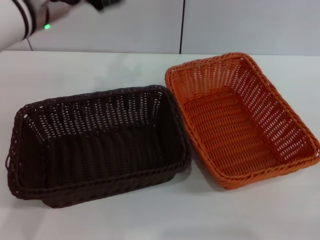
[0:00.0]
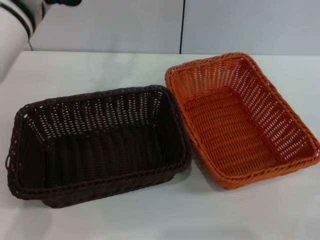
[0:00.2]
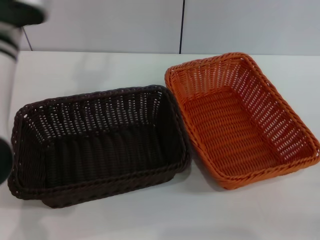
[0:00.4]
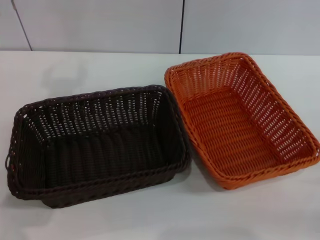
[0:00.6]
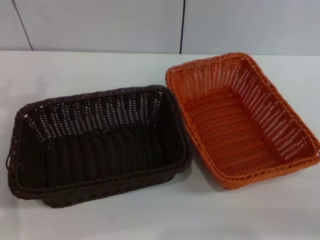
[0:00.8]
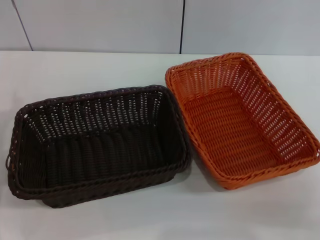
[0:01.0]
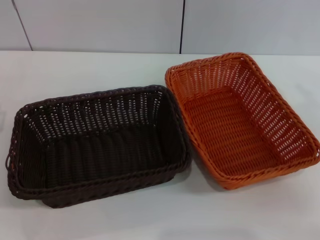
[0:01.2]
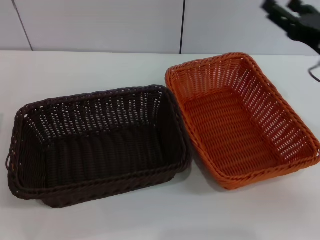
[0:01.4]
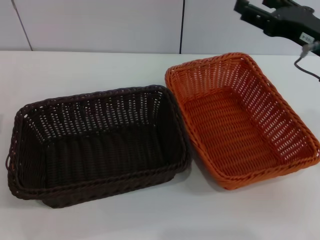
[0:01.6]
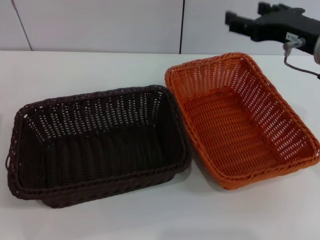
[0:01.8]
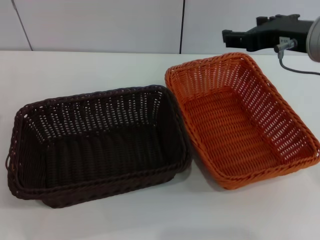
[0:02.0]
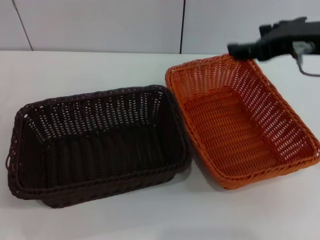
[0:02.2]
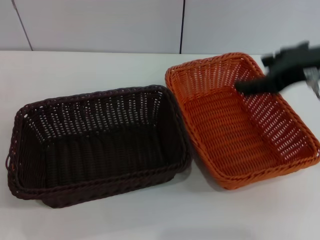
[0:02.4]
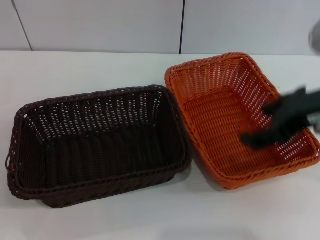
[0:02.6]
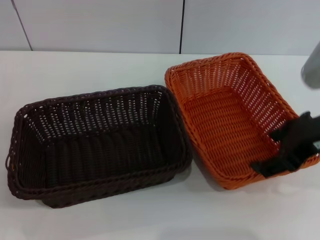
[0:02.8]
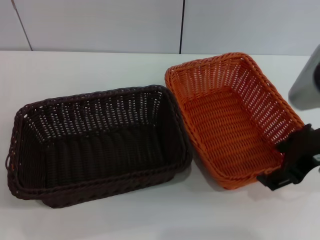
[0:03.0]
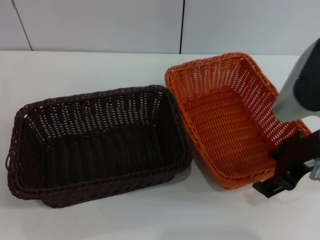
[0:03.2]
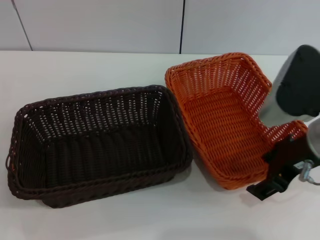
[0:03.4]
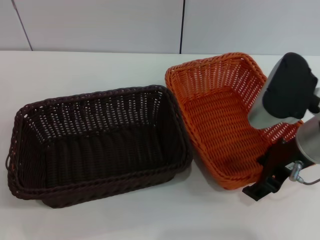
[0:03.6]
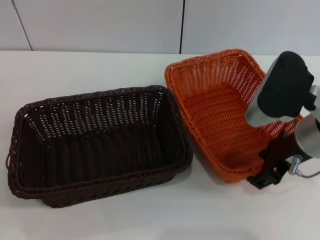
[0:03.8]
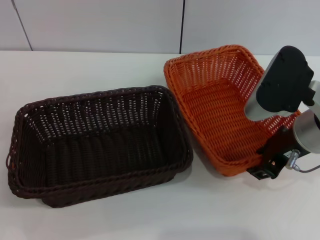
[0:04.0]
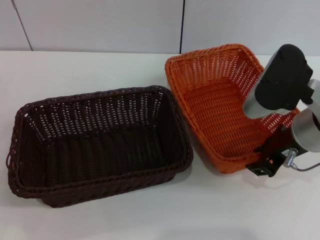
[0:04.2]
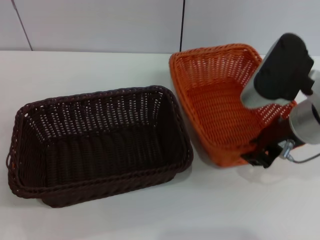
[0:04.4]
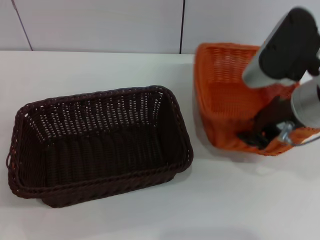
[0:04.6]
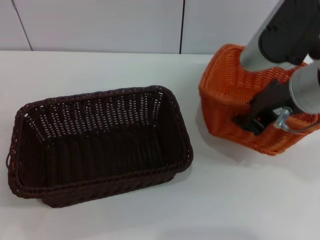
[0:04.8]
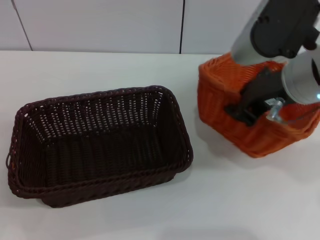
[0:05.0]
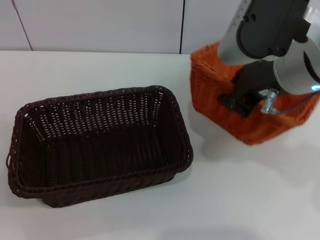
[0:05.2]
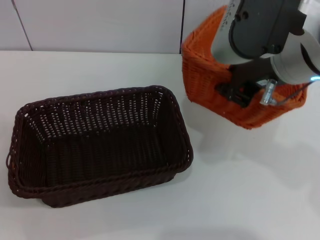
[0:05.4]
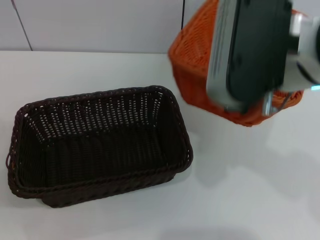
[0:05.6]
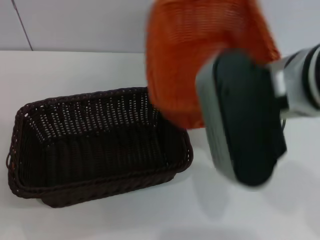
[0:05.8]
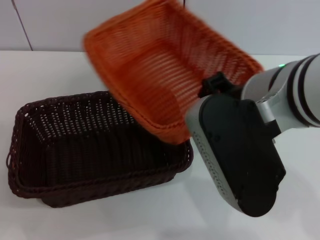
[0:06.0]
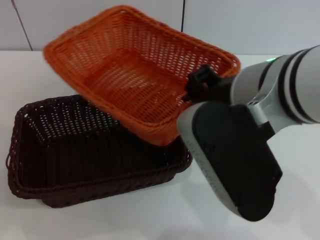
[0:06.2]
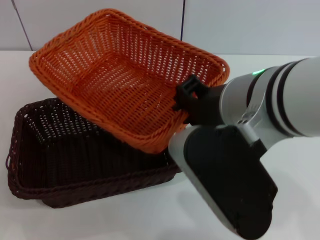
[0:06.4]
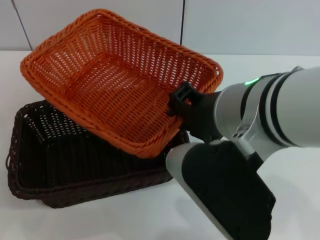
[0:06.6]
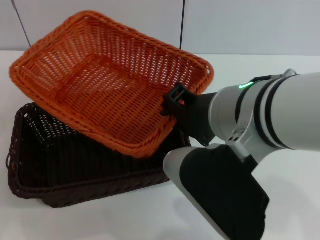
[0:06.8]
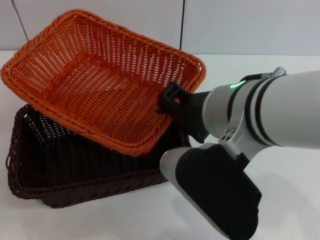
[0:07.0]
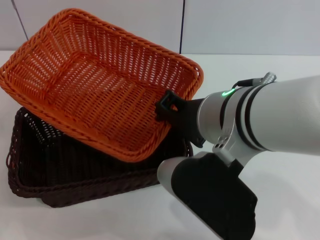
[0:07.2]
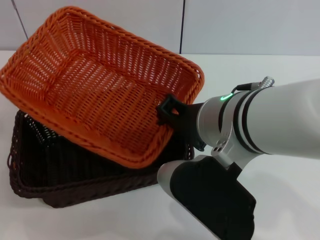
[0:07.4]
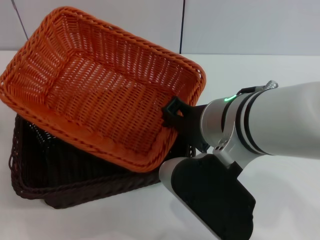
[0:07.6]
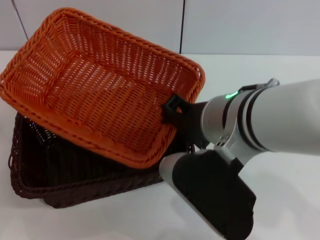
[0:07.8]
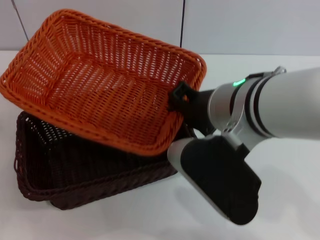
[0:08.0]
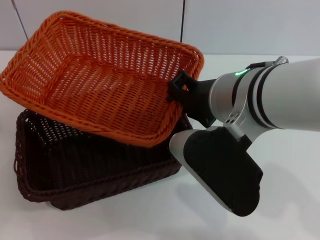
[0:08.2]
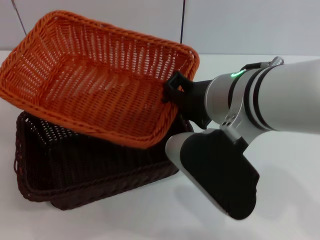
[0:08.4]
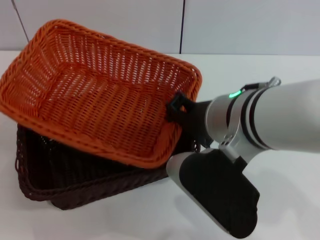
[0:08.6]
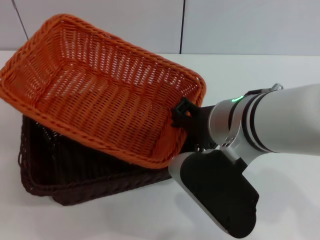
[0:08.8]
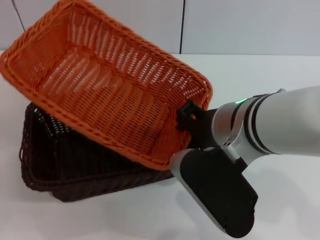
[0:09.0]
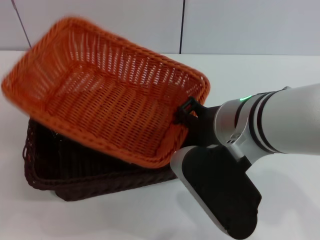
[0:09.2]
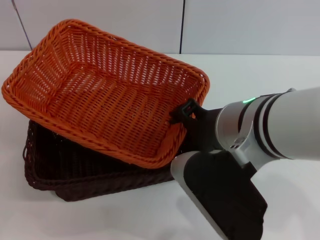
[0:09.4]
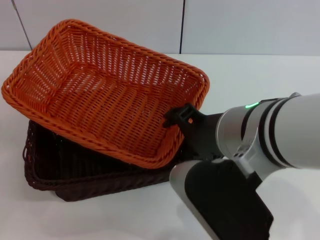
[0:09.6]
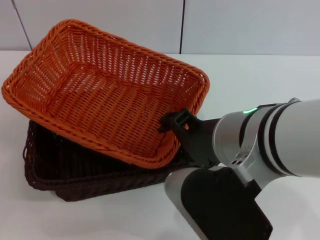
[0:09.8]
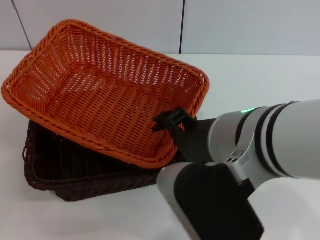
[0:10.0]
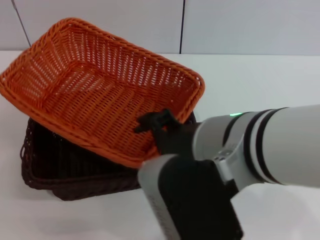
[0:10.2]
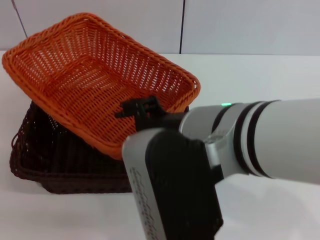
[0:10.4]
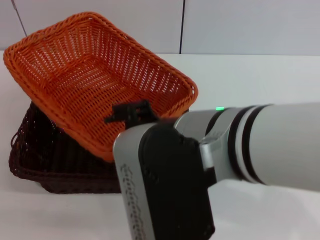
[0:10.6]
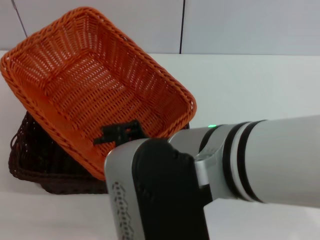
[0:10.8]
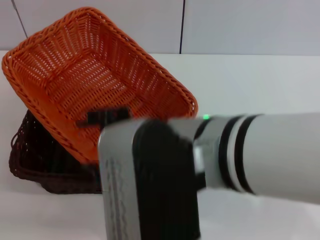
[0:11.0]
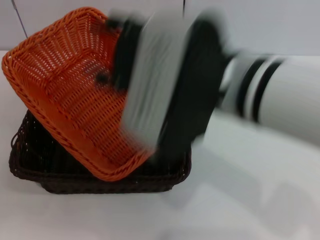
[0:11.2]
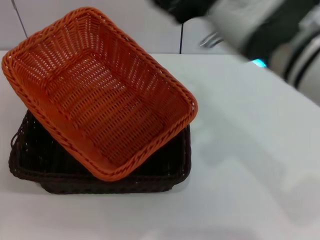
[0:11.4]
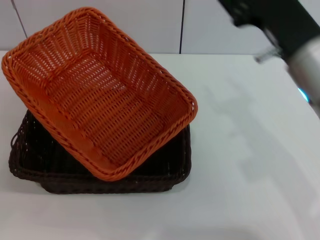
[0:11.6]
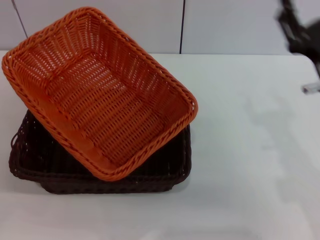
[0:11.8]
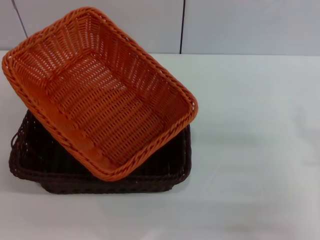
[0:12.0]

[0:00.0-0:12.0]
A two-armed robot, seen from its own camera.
Step, 0:00.0 to 0:04.4: Pick up the light basket with the right gripper.
Step, 0:04.6 to 0:10.0: Place the light basket on the dark basket with the right gripper.
0:00.0 to 0:01.6: The left gripper travels downward, to the left and backward by roughly 30 cm; the right gripper heads upward, to the left and forward, covering roughly 25 cm, and opens up.
0:01.6 to 0:03.0: The right gripper travels backward by about 5 cm.
0:03.0 to 0:04.4: The right gripper moves about 5 cm, and closes its fingers.
0:04.4 to 0:06.0: The right gripper shifts some 10 cm to the left, upward and backward.
0:06.0 to 0:07.6: The right gripper ends up about 5 cm from where it was.
0:09.0 to 0:10.4: The right gripper changes place by roughly 5 cm, and opens.
0:10.4 to 0:12.0: The right gripper goes some 25 cm to the right and downward.
